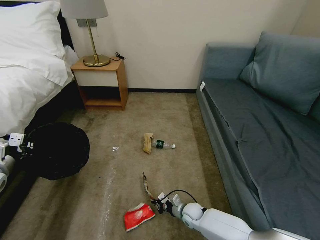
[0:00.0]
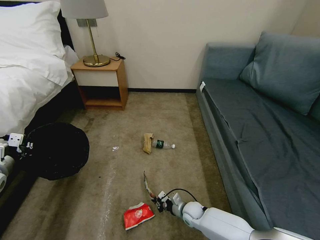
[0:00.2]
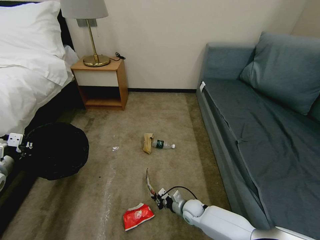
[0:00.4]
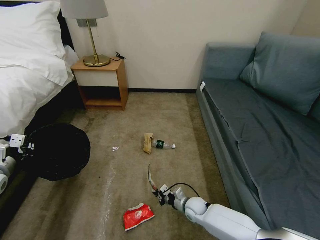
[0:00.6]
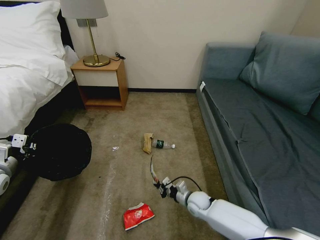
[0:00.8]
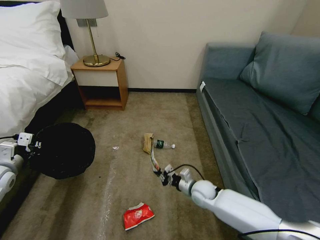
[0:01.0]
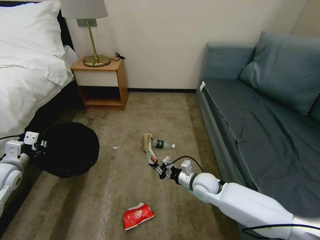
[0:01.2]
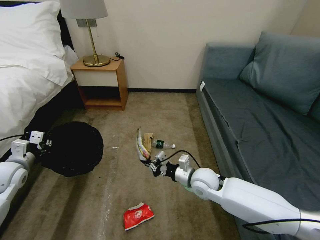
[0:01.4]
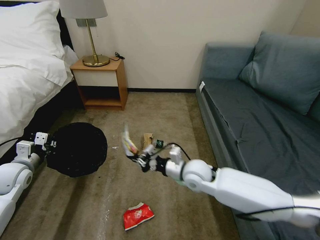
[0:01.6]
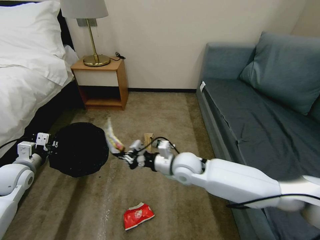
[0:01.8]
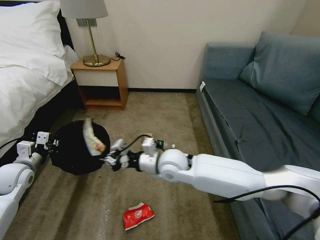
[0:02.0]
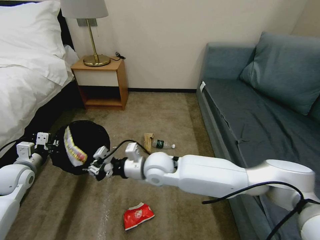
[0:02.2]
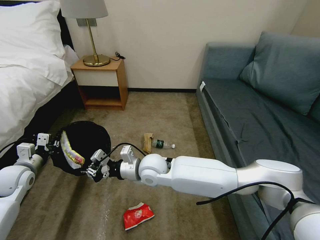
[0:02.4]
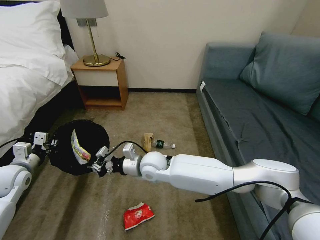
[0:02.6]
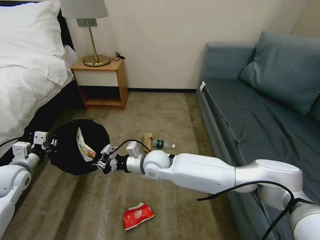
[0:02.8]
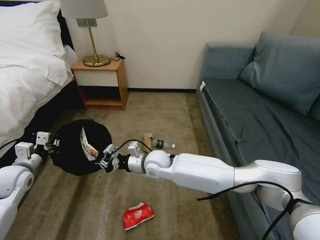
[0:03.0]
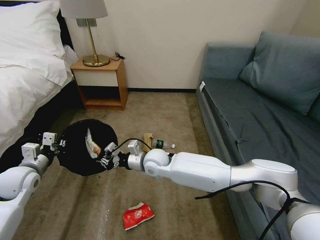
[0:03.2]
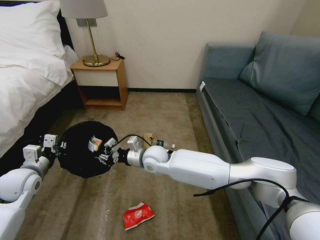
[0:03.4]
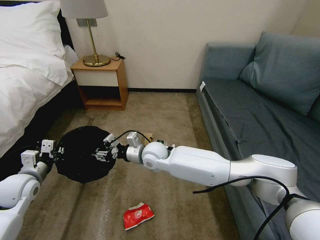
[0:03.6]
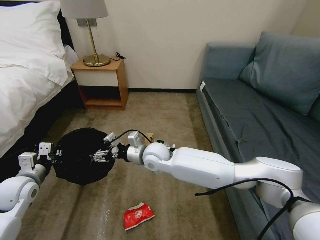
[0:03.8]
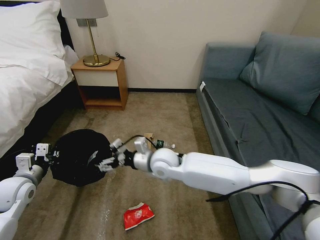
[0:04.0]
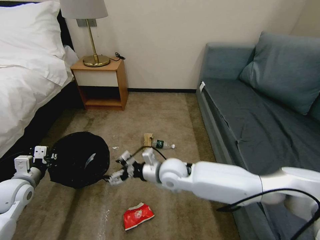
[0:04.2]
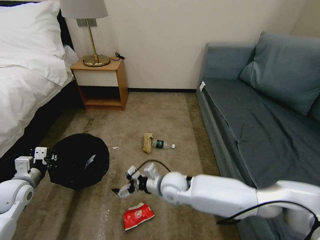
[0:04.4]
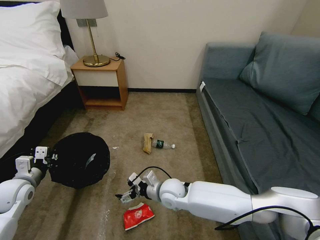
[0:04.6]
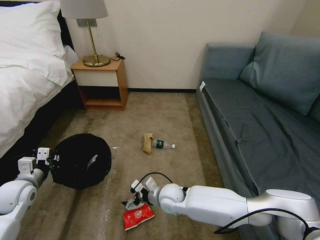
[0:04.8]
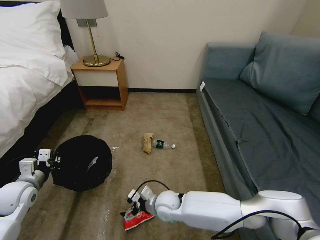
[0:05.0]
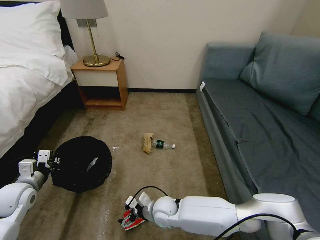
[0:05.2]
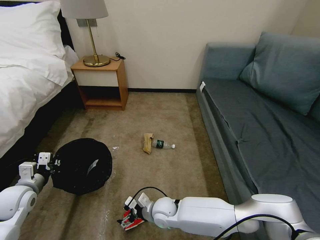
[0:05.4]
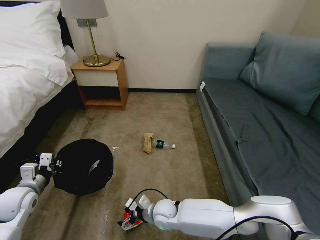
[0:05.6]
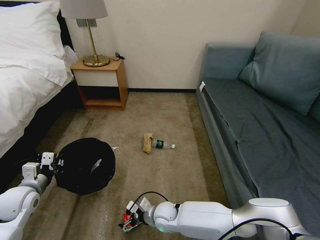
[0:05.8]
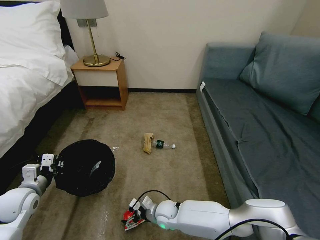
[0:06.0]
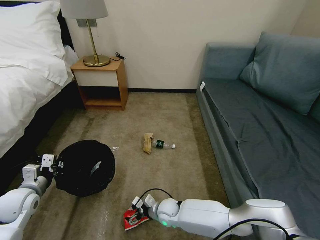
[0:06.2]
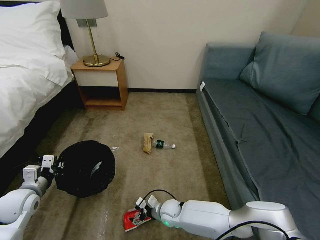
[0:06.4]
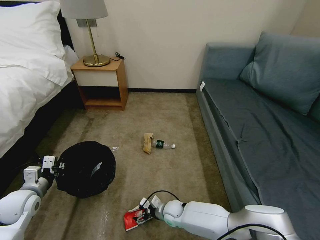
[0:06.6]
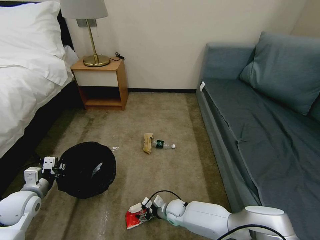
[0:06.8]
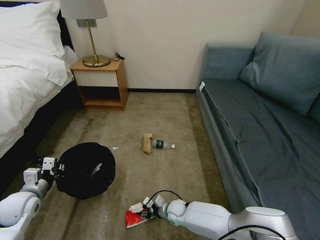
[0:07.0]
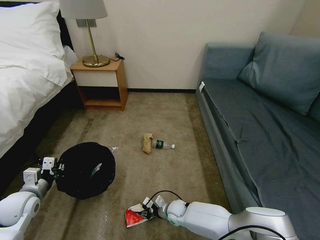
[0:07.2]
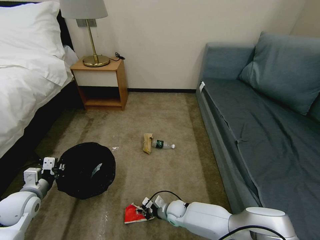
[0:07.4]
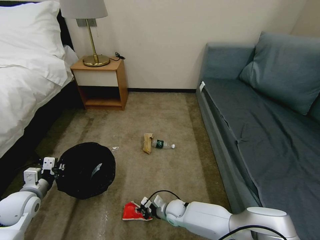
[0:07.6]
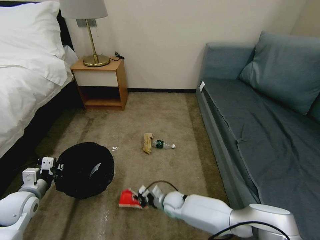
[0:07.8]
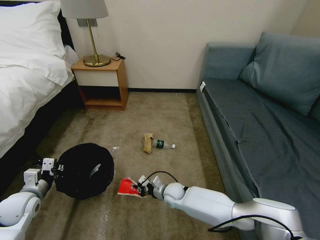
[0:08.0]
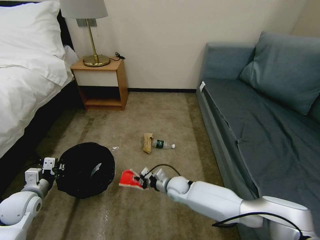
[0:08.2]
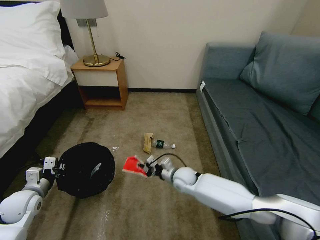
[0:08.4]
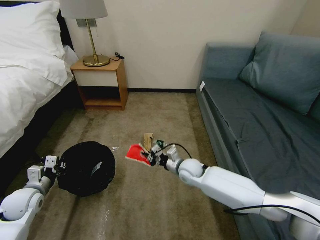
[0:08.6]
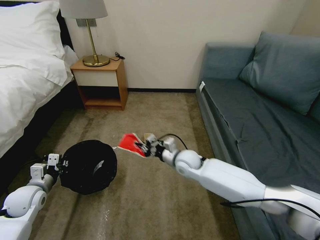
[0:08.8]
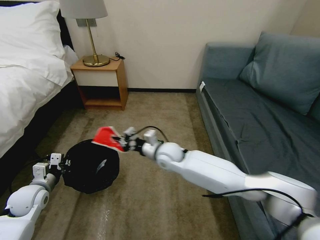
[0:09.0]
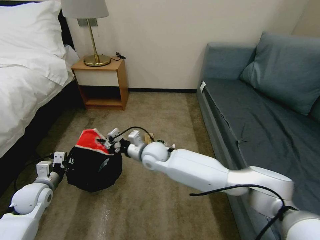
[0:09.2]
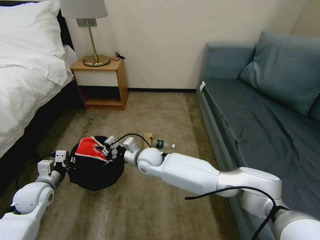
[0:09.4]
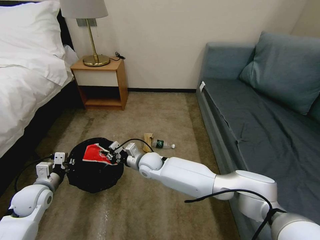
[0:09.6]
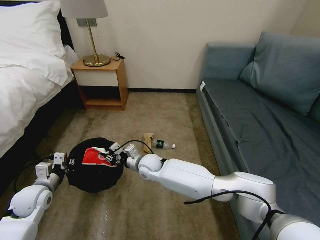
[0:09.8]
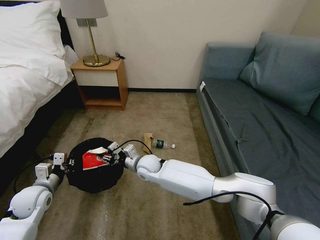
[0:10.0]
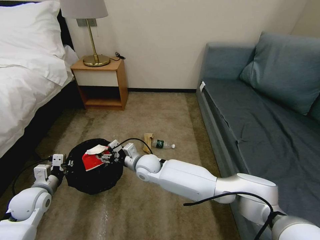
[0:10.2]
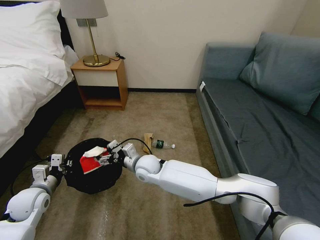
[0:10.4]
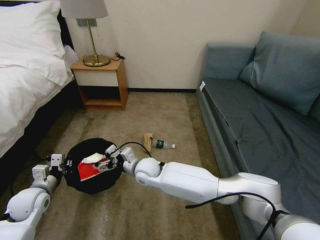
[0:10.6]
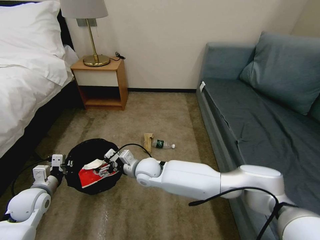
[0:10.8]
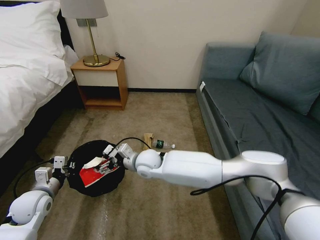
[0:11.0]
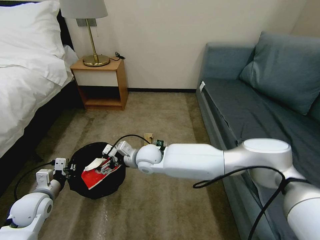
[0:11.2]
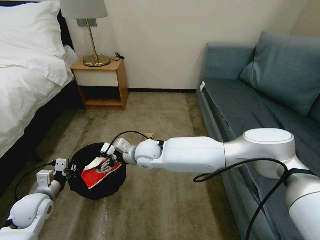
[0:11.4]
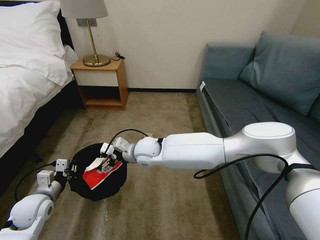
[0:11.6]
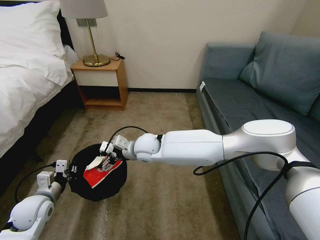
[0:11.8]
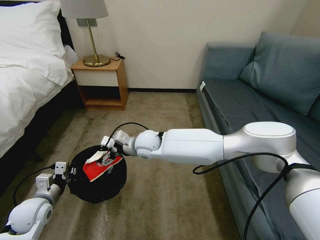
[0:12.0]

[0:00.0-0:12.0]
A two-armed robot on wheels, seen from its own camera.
Task of the whole recording: Pick up the trash bin, then pick up the garbage on the floor and place it into the trash bin.
0:00.0 to 0:01.6: The right gripper goes roughly 25 cm upward, while the left gripper ends up approximately 5 cm from where it was.
0:01.6 to 0:03.0: The right gripper travels to the left by about 15 cm.
0:03.0 to 0:04.4: The right gripper shifts roughly 10 cm backward, to the right and downward, and opens up.
0:04.4 to 0:06.0: The right gripper heads downward, covering about 15 cm.
0:06.0 to 0:07.6: The right gripper moves downward, roughly 5 cm, and closes up.
0:07.6 to 0:09.0: The right gripper shifts roughly 30 cm upward and forward.
0:09.0 to 0:10.4: The right gripper moves to the left and downward, approximately 10 cm, and opens.
0:10.4 to 0:12.0: The right gripper heads upward, covering roughly 10 cm.

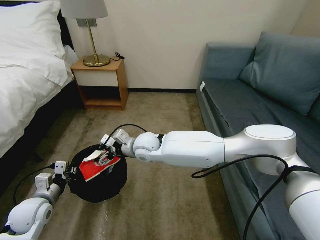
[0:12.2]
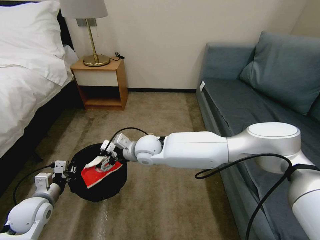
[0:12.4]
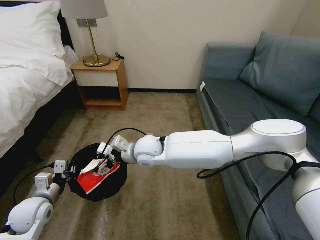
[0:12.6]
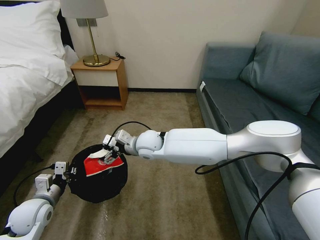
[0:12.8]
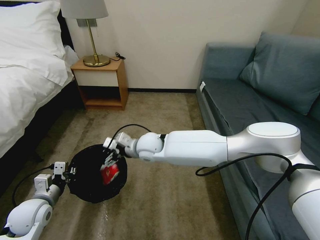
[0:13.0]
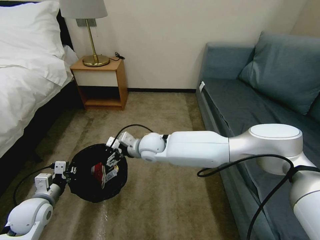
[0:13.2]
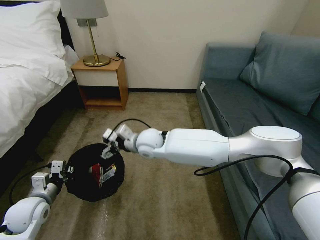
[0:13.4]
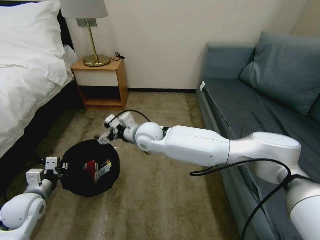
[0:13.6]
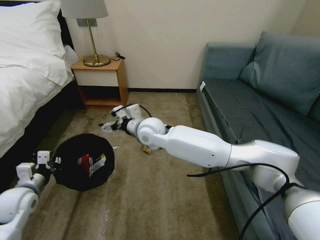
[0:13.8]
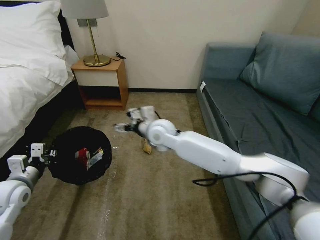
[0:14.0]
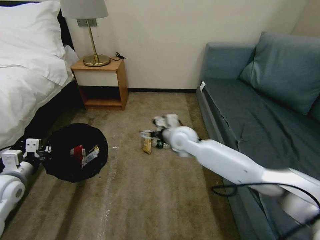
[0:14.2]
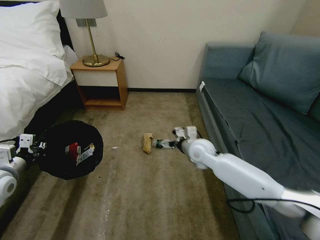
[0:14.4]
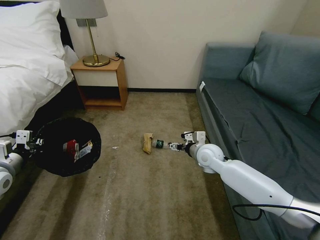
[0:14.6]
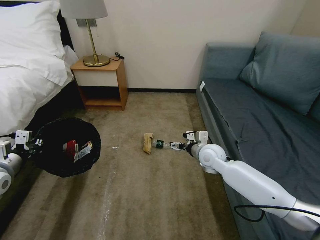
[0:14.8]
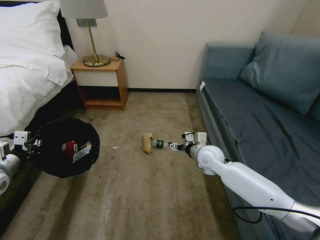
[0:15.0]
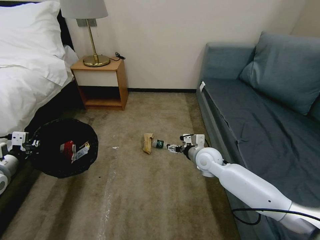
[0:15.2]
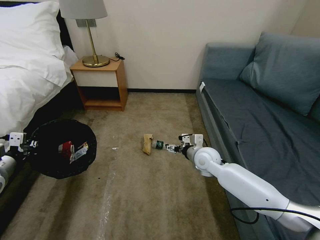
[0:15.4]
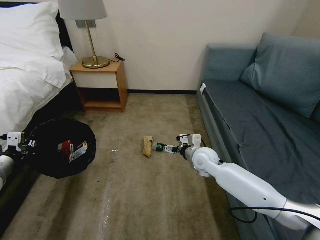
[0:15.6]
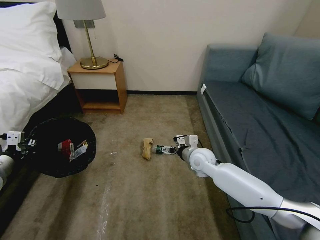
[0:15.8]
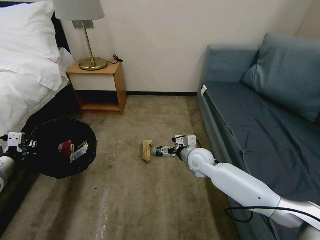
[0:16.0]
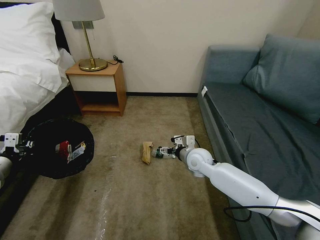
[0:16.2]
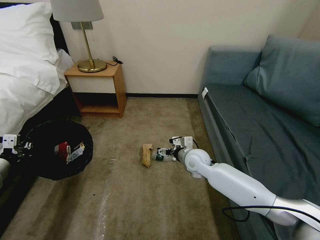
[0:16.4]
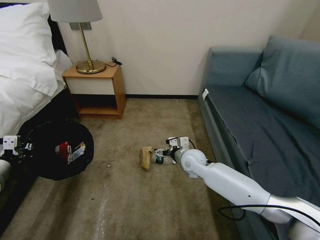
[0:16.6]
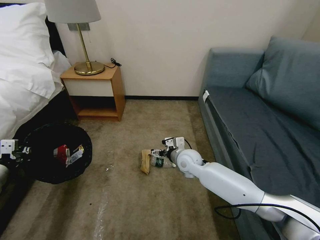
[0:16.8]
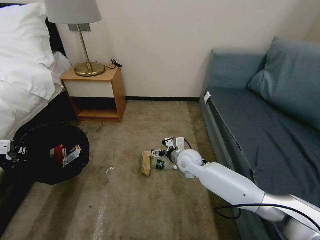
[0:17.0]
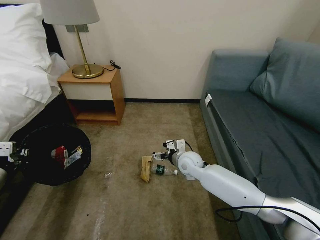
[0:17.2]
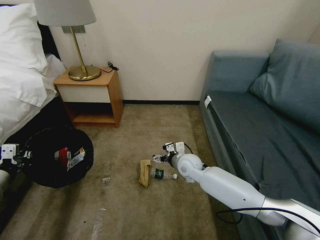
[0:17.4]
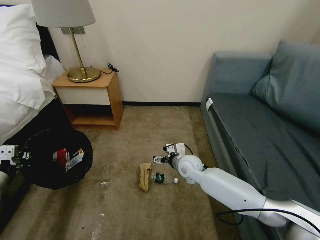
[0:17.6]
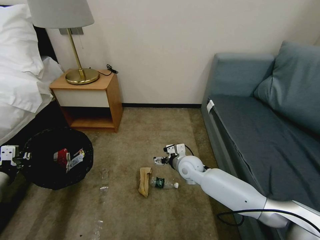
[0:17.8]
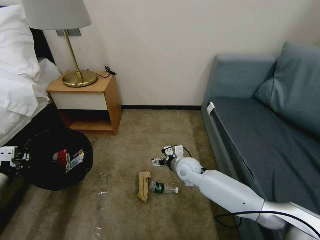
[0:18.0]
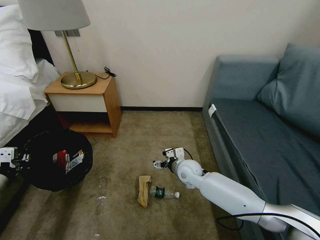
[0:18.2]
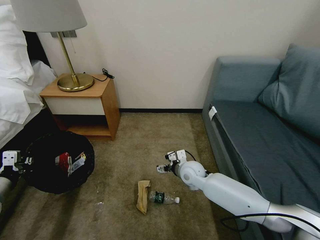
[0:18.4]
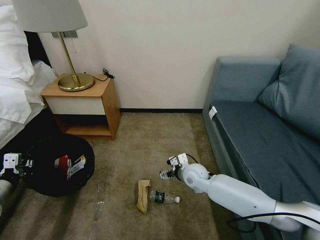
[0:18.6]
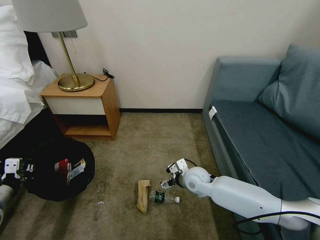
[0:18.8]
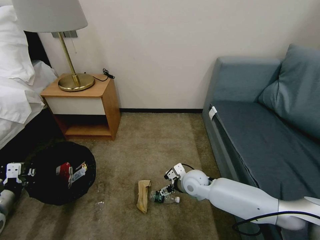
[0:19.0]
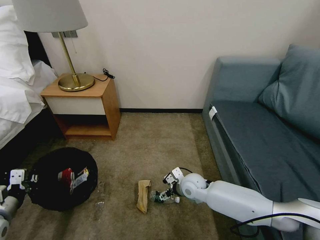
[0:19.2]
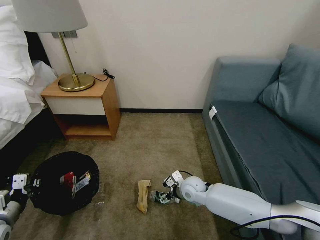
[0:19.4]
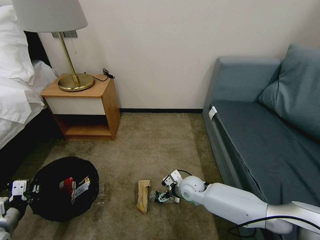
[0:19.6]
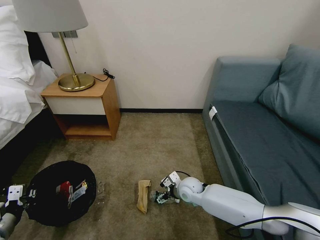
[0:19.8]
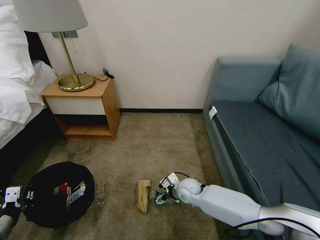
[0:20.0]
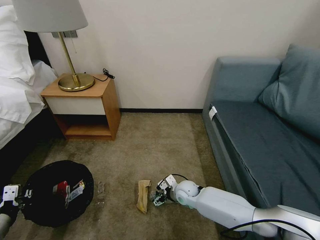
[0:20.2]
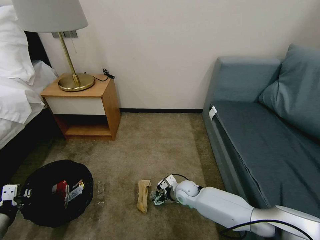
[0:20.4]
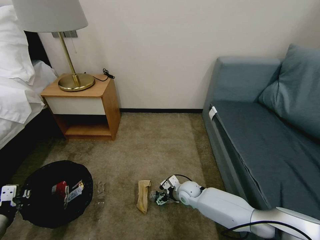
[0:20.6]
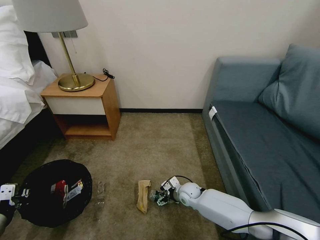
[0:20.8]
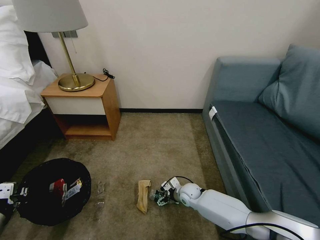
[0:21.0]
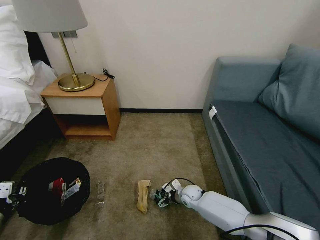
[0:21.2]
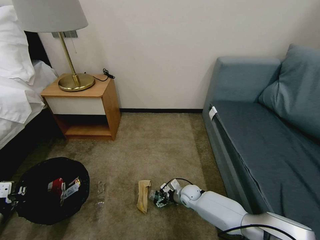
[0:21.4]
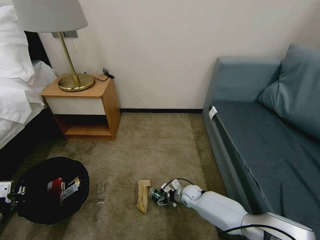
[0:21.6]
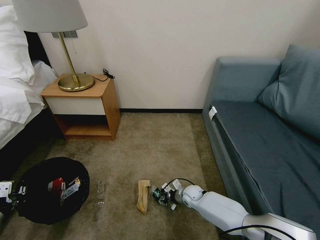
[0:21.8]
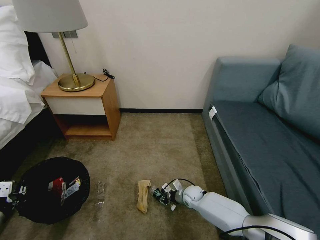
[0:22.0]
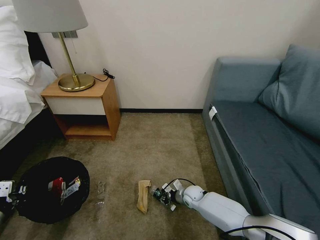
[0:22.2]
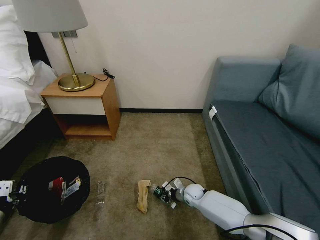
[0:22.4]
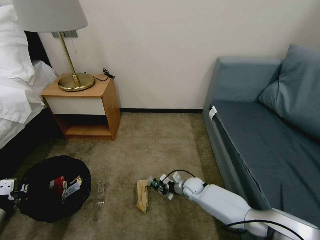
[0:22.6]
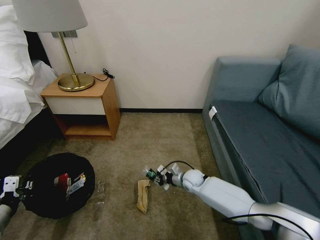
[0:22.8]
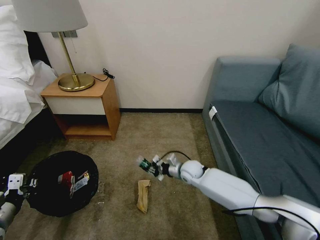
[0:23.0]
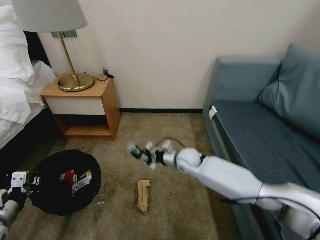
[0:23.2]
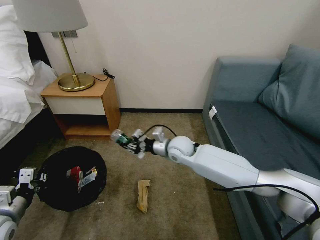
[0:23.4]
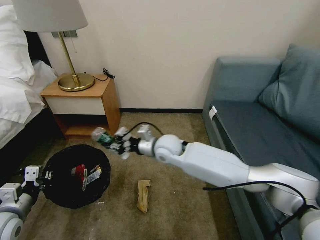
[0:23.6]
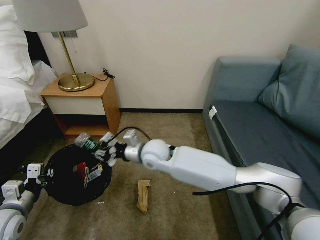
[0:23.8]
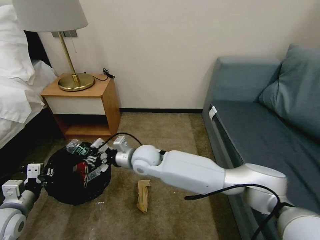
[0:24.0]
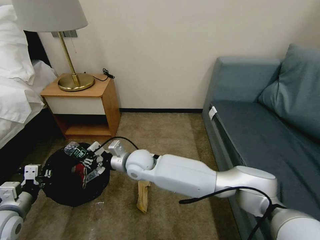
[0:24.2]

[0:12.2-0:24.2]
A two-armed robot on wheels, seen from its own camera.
Task of the whole recording: Pick up the trash bin, then pick up the garbage on the floor and place it into the trash bin.
0:12.2 to 0:13.8: The left gripper moves roughly 5 cm. The right gripper moves about 5 cm.
0:13.8 to 0:15.2: The right gripper is displaced to the right and downward by approximately 25 cm; the left gripper moves upward and to the left, roughly 10 cm.
0:15.2 to 0:16.6: The right gripper shifts approximately 5 cm to the left.
0:18.2 to 0:19.8: The right gripper is displaced downward by roughly 5 cm. The left gripper shifts approximately 10 cm downward and backward.
0:19.8 to 0:21.2: The right gripper shifts some 10 cm downward.
0:21.2 to 0:22.6: The right gripper closes up.
0:22.6 to 0:24.2: The right gripper goes approximately 35 cm upward and to the left. The left gripper is displaced to the right by approximately 5 cm.
